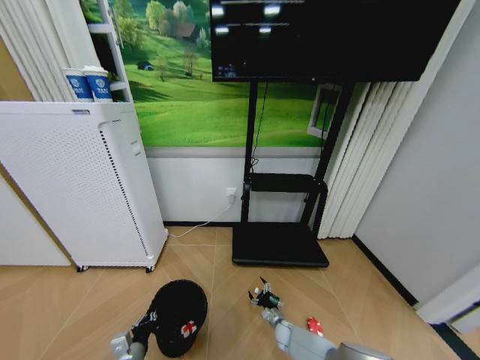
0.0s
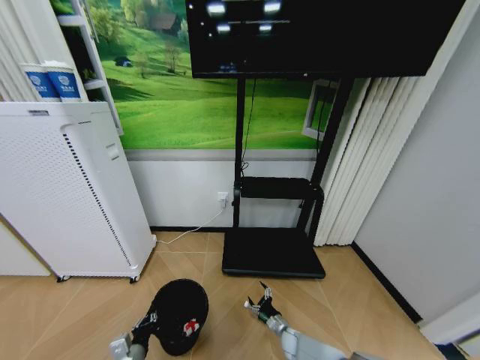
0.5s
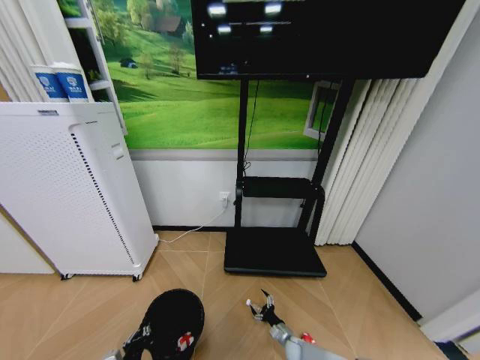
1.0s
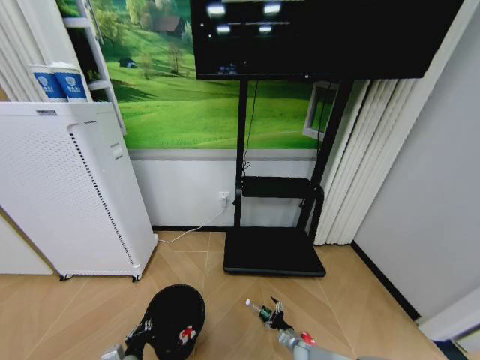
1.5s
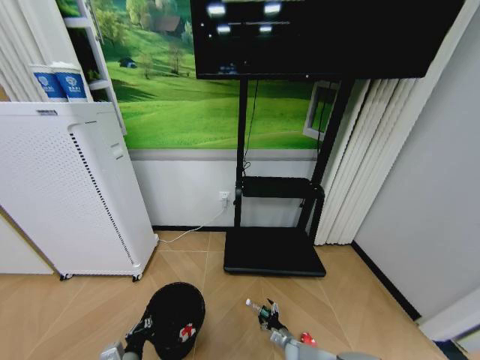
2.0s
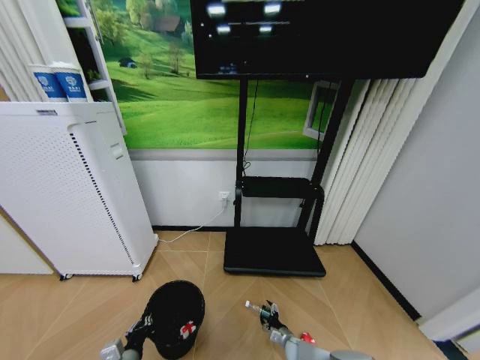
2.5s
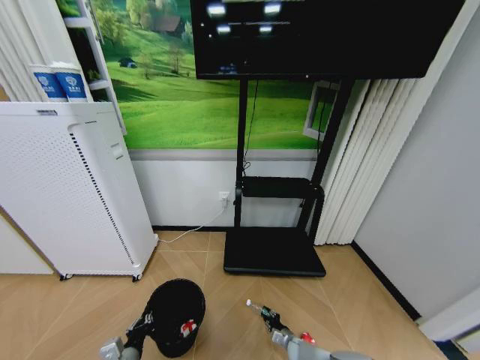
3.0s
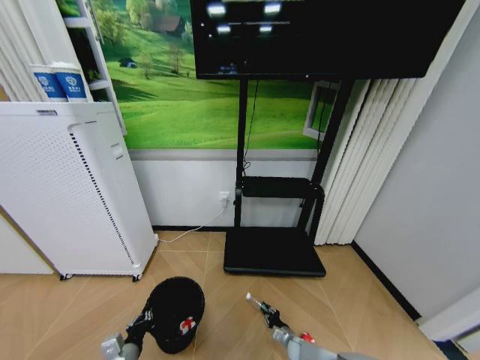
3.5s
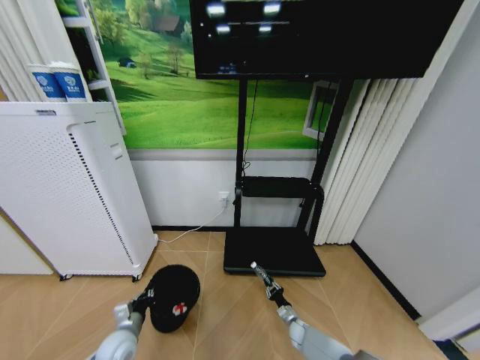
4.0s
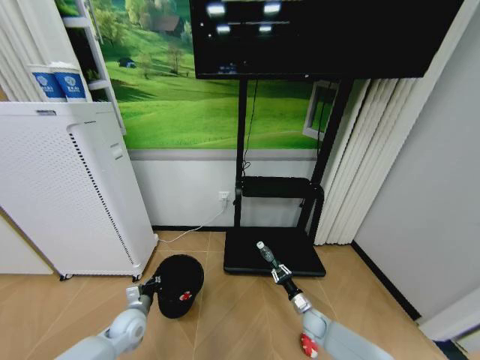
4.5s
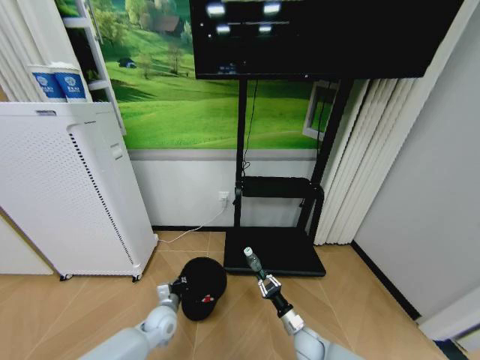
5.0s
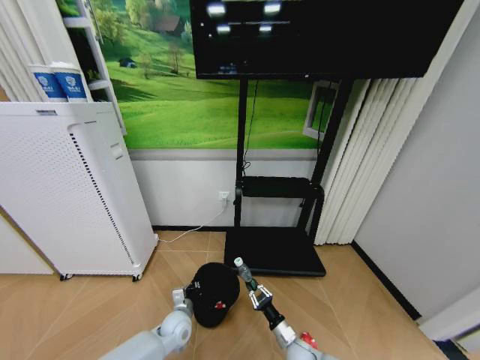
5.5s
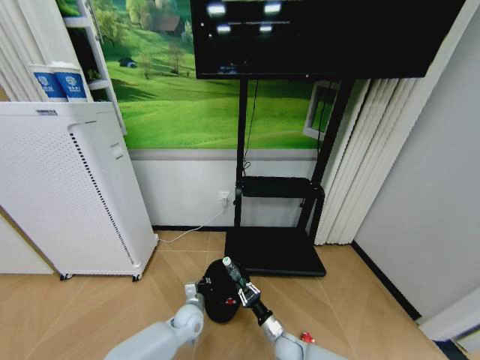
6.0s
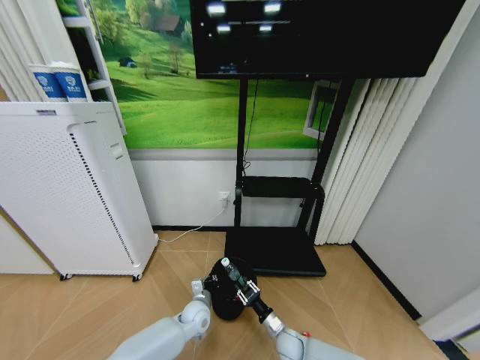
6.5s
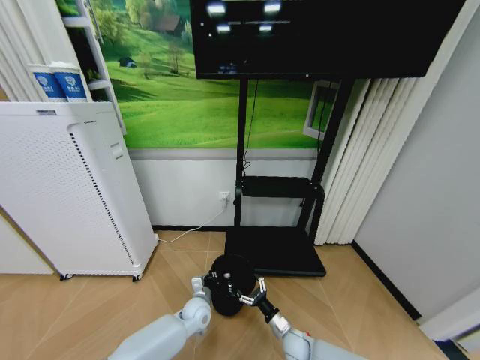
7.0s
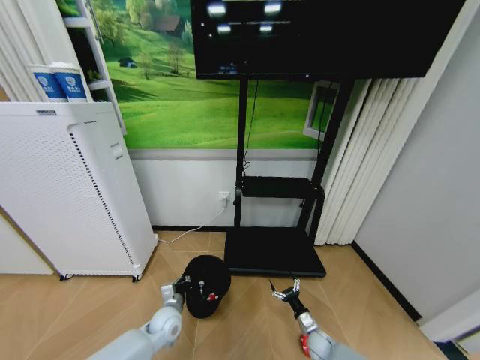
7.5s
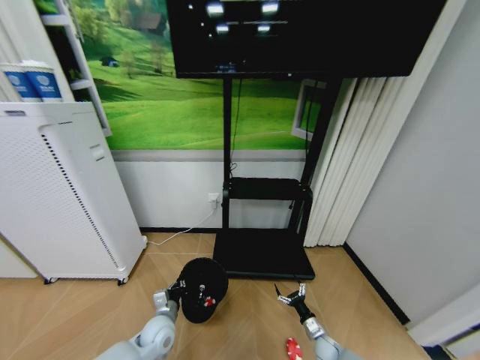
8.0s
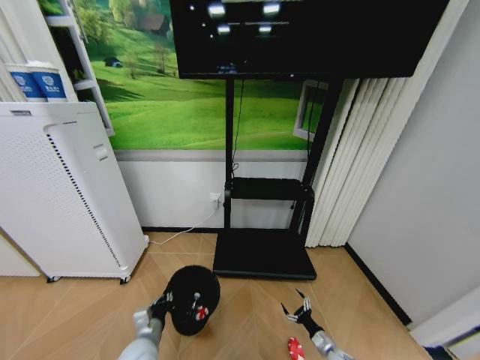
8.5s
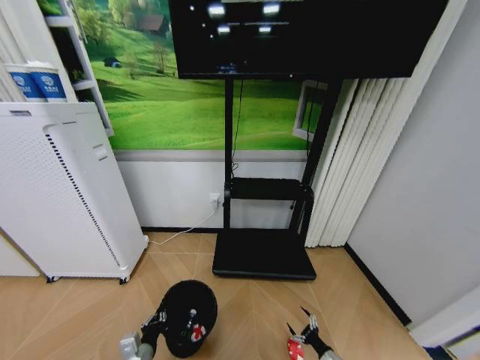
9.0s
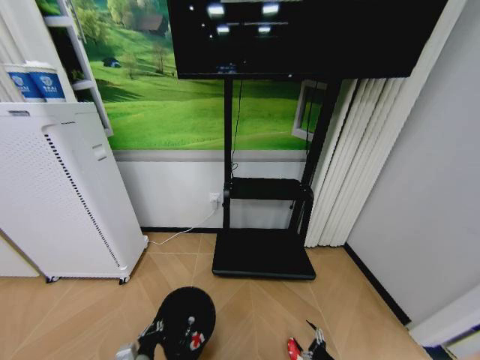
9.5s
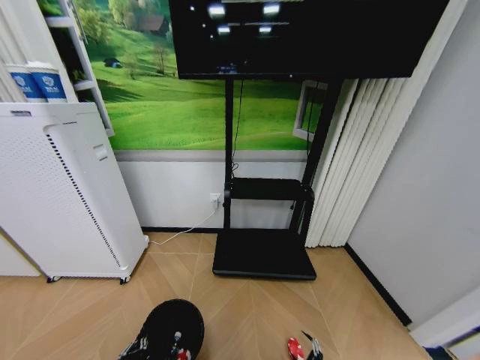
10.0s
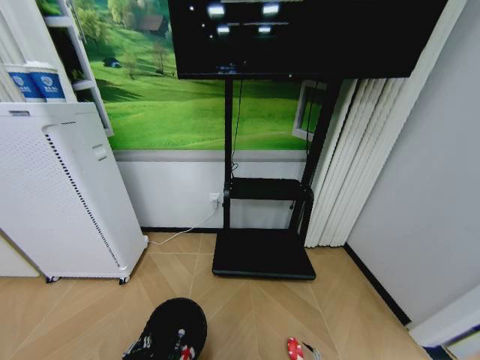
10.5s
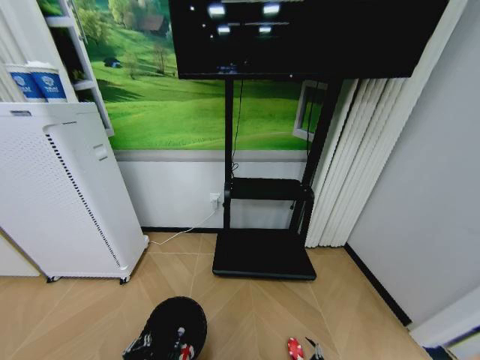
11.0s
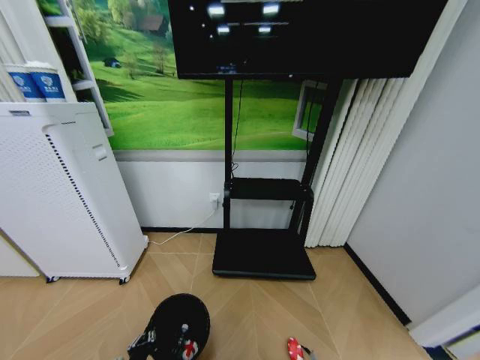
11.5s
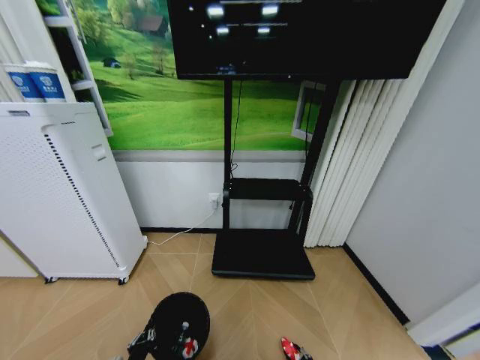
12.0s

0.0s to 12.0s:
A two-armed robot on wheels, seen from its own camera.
Task of the whole recording: Pick up the trash bin and place the garbage on the floor into it.
0.0s to 2.0s: The right gripper travels backward by roughly 5 cm.
2.0s to 4.0s: The right gripper shifts about 5 cm forward, and closes its fingers; the left gripper travels forward by roughly 10 cm.
4.0s to 6.0s: The right gripper goes some 15 cm upward, to the left and backward. Meanwhile the left gripper is displaced to the right and forward by about 20 cm.
6.0s to 8.0s: The left gripper shifts about 10 cm to the left. The right gripper moves to the right, approximately 15 cm, and opens up.
8.0s to 10.0s: The right gripper is displaced backward, to the right and downward by some 15 cm. Meanwhile the left gripper is displaced backward by about 20 cm.
10.0s to 12.0s: The right gripper closes.

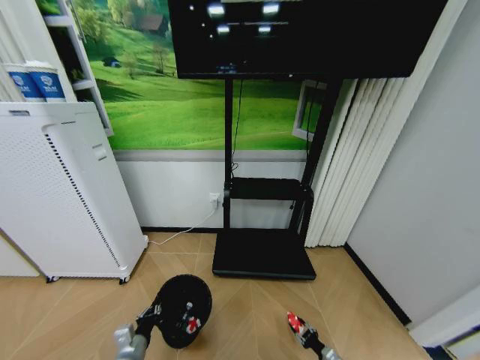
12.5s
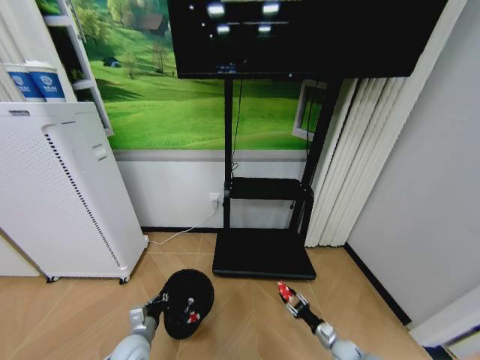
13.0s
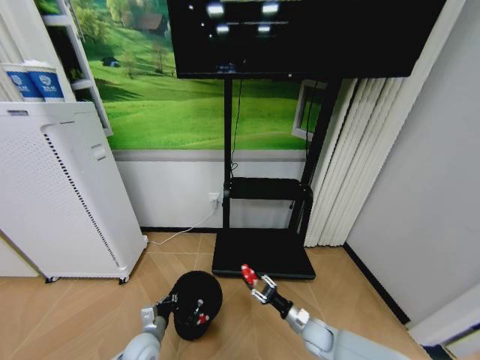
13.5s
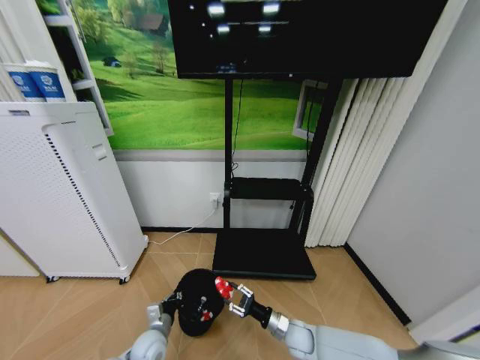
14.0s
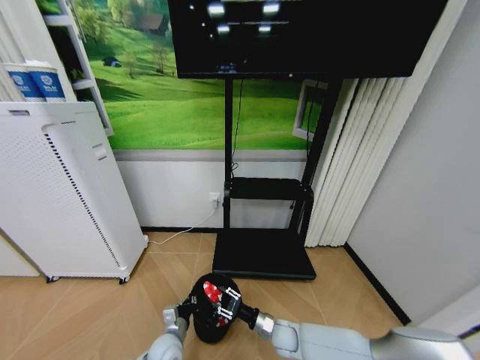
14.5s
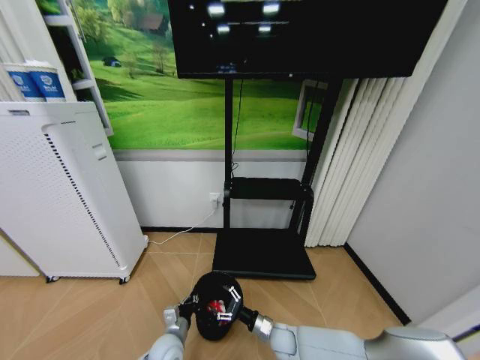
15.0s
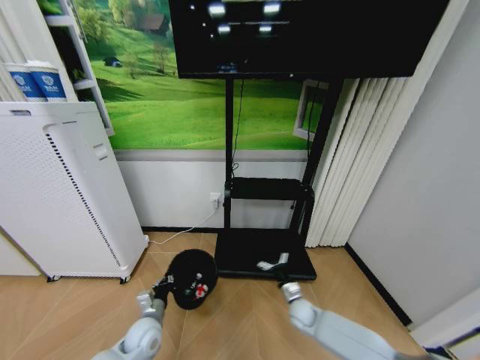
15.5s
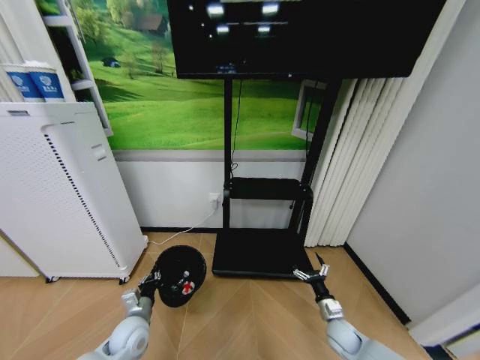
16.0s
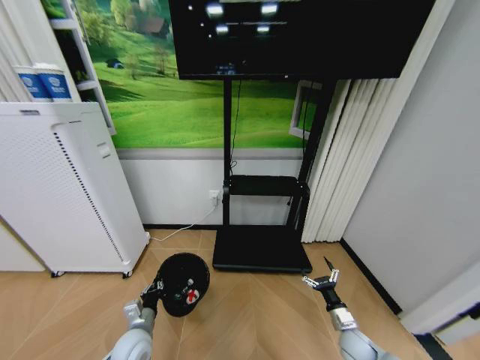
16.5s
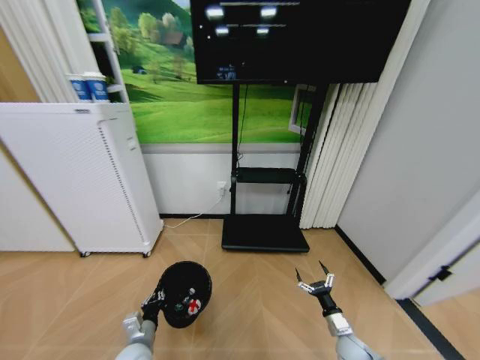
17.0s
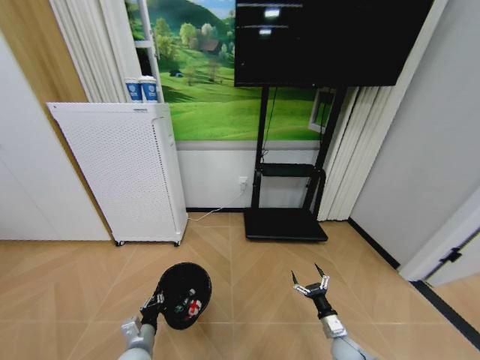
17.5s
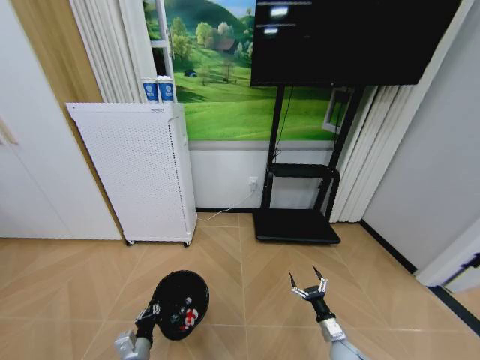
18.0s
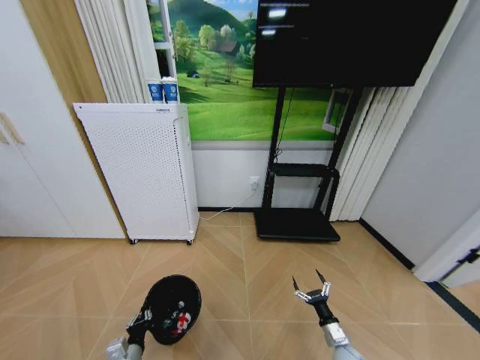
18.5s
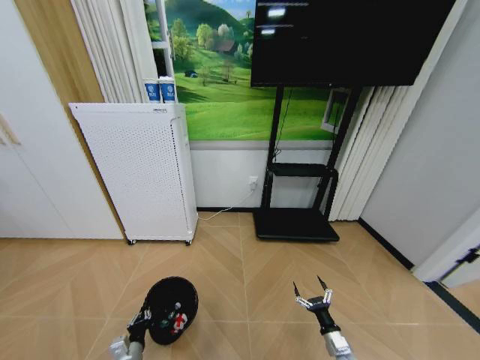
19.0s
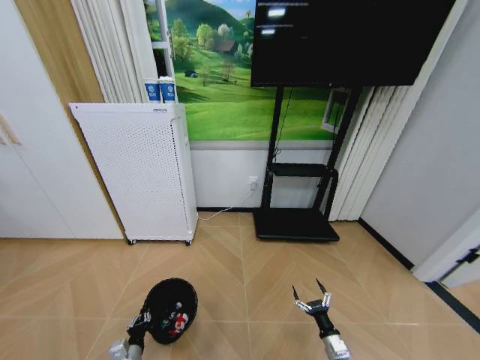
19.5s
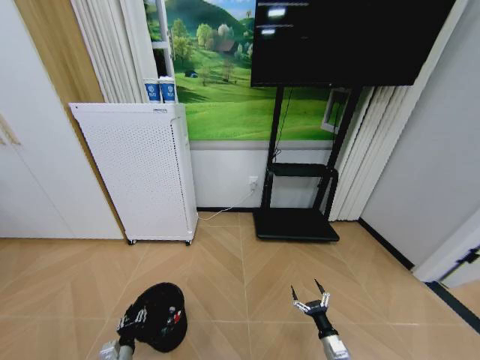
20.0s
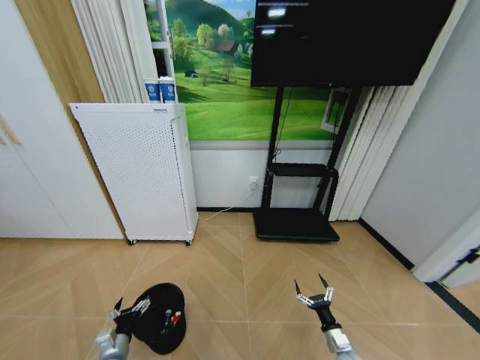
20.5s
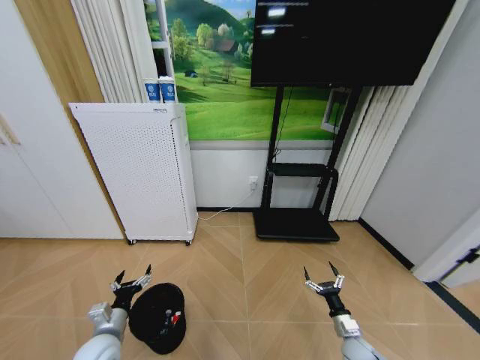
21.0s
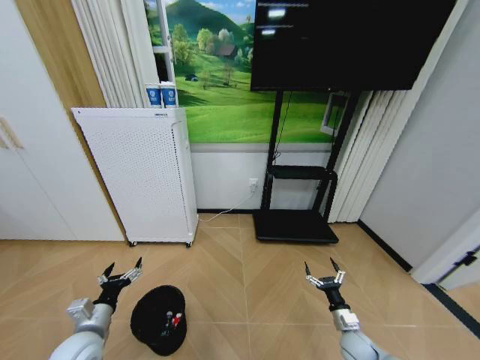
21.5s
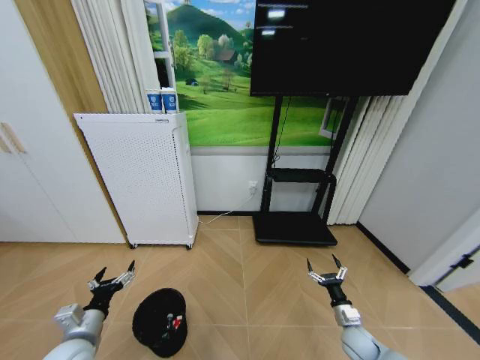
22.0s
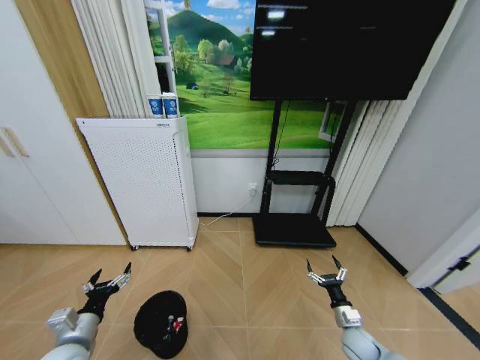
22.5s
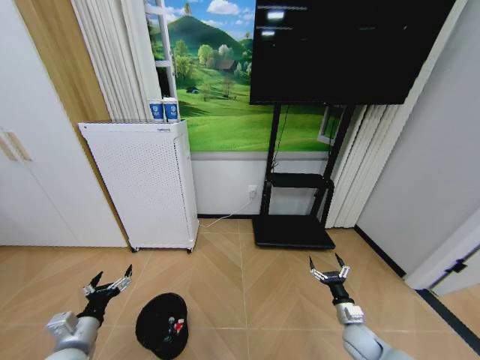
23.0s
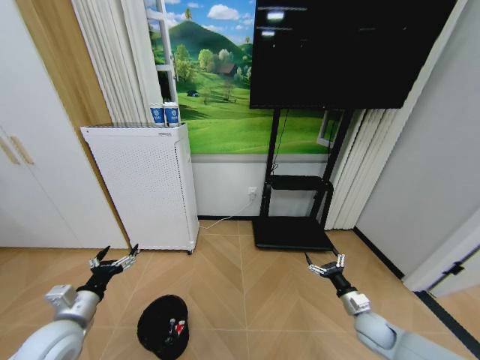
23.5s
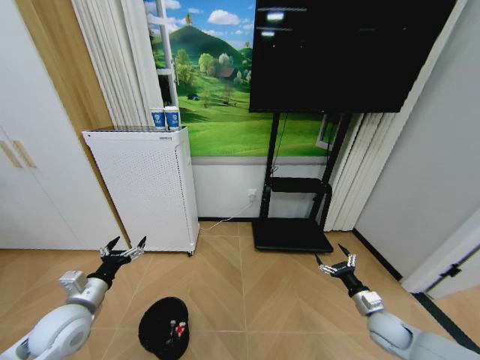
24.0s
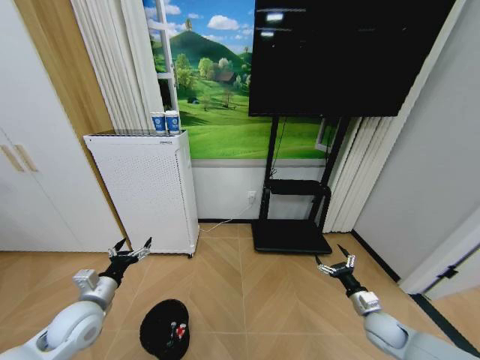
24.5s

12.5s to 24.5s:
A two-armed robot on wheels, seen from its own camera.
Task of the whole recording: Pick up the trash bin and place the garbage on the floor into it.
12.5s to 14.5s: The right gripper moves to the left and upward, approximately 30 cm, while the left gripper shifts roughly 10 cm to the right and forward.
14.5s to 16.5s: The left gripper is displaced to the left and upward by about 10 cm; the right gripper is displaced to the right by about 20 cm, and opens up.
16.5s to 18.5s: The right gripper moves approximately 5 cm. The left gripper heads backward, covering roughly 10 cm.
18.5s to 20.5s: The left gripper goes some 5 cm to the left, and opens up.
20.5s to 22.5s: The right gripper moves upward, about 5 cm. The left gripper heads upward, covering roughly 15 cm.
22.5s to 24.5s: The left gripper goes roughly 5 cm forward. Meanwhile the right gripper is displaced upward and to the right by roughly 10 cm.

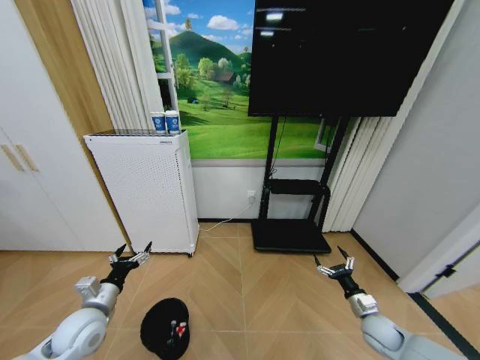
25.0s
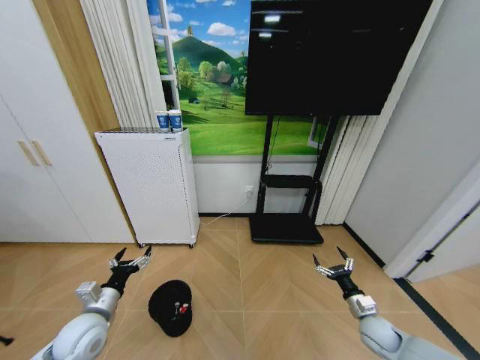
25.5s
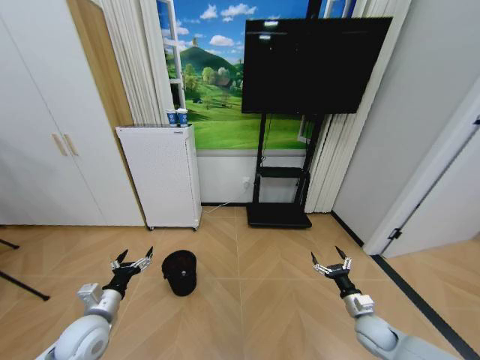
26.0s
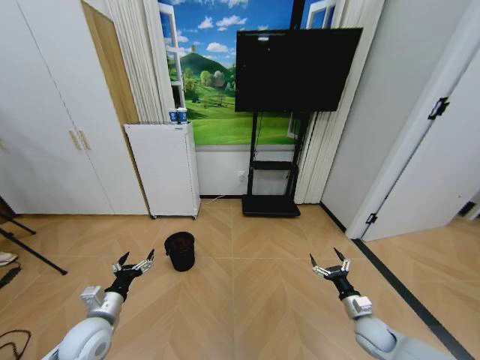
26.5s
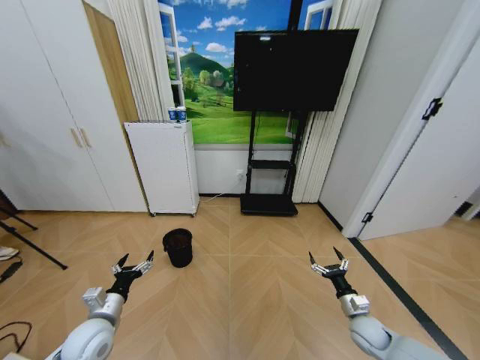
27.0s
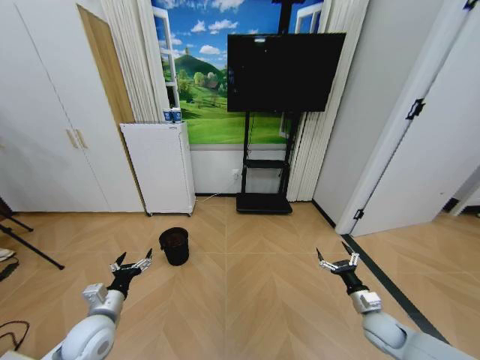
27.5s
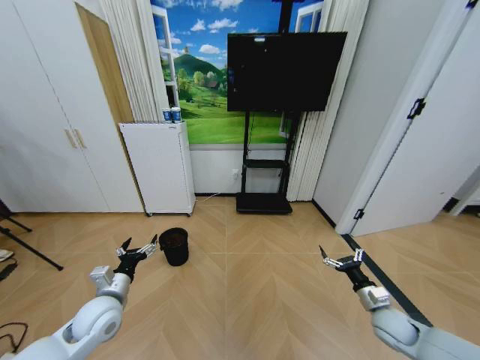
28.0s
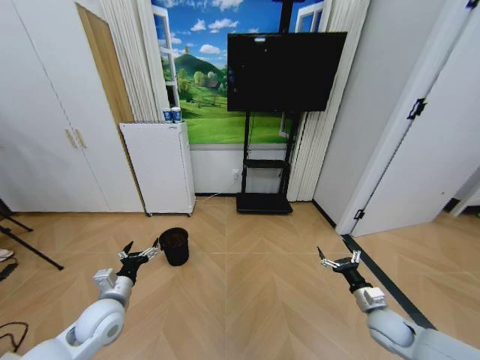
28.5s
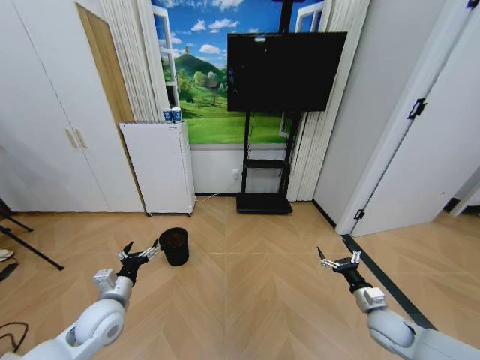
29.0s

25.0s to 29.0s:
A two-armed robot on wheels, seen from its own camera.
Task of the whole recording: Pick up the trash bin and place the garbage on the floor into it.
27.0s to 29.0s: The left gripper ends up some 5 cm from where it was. The right gripper shifts about 5 cm upward.
